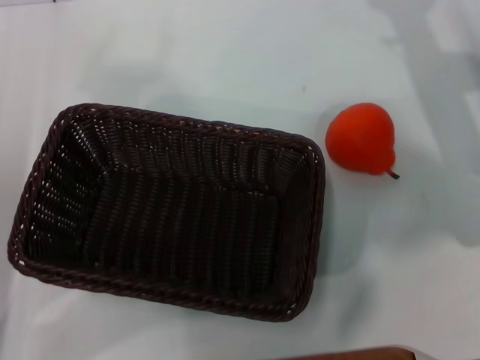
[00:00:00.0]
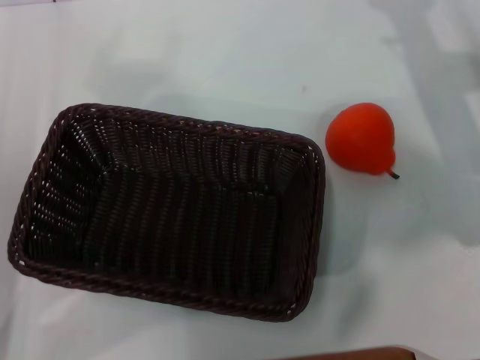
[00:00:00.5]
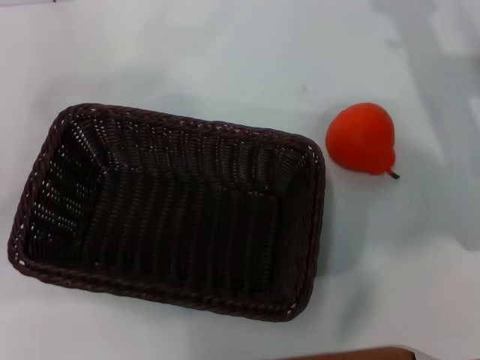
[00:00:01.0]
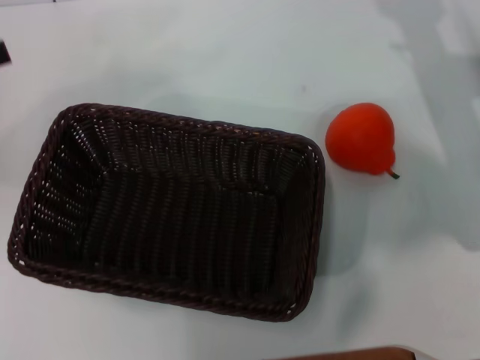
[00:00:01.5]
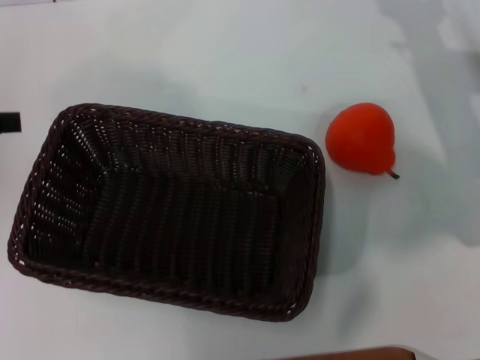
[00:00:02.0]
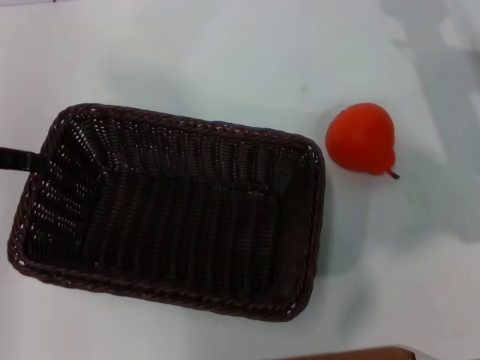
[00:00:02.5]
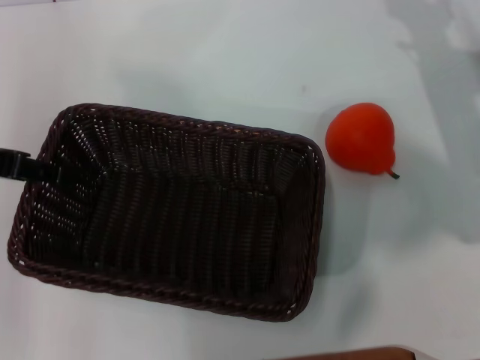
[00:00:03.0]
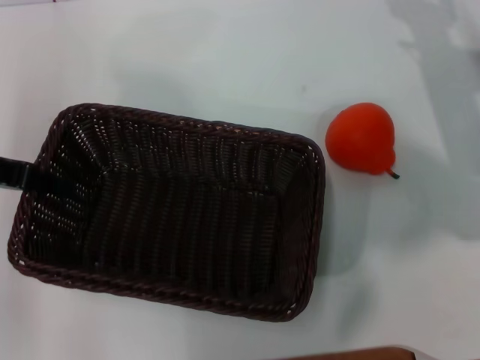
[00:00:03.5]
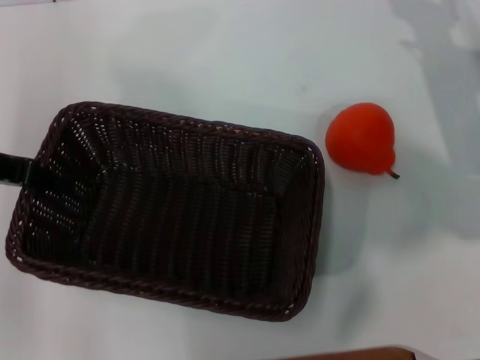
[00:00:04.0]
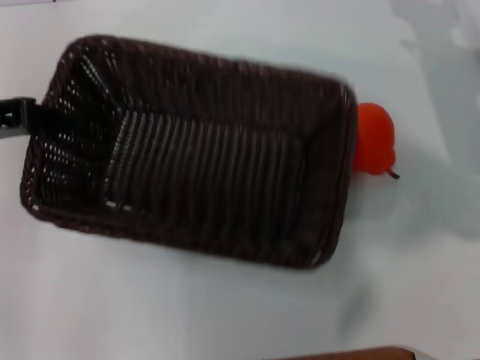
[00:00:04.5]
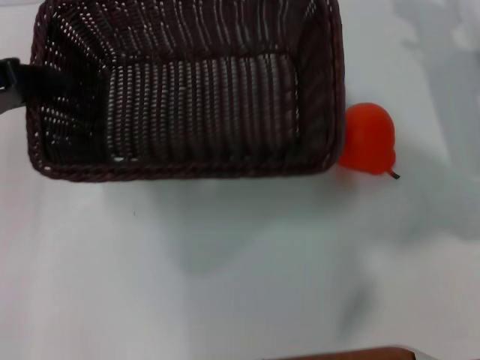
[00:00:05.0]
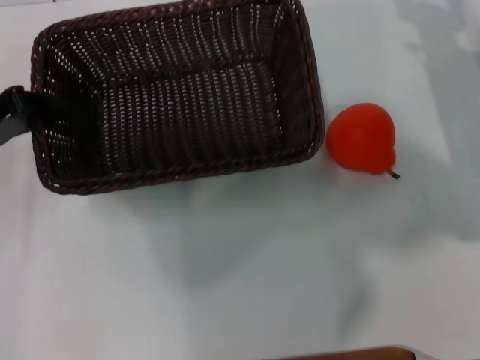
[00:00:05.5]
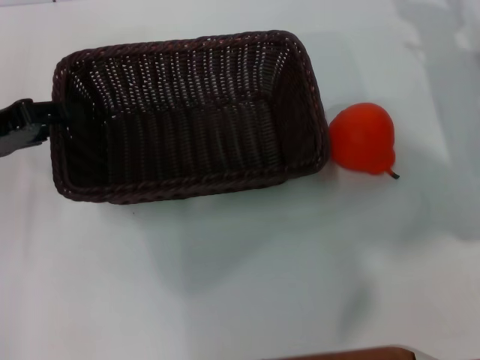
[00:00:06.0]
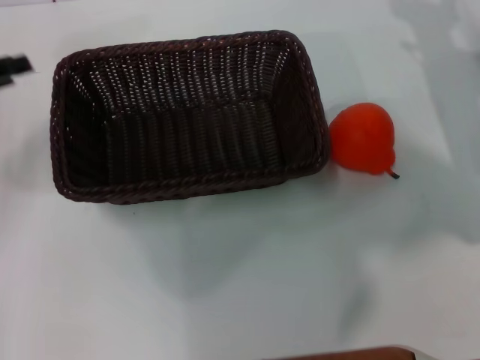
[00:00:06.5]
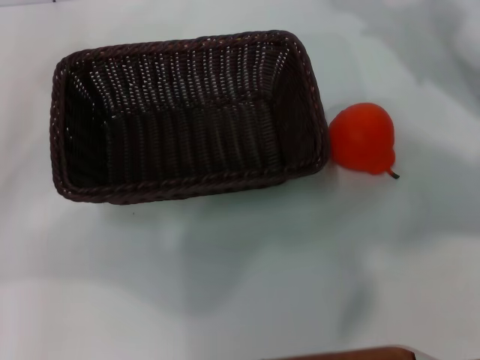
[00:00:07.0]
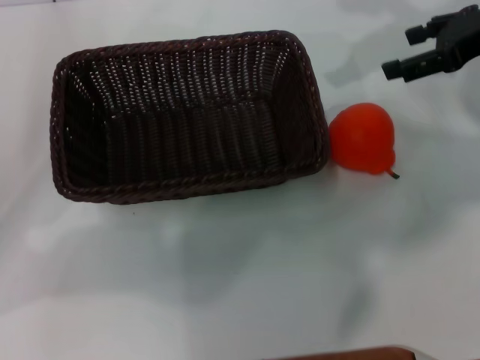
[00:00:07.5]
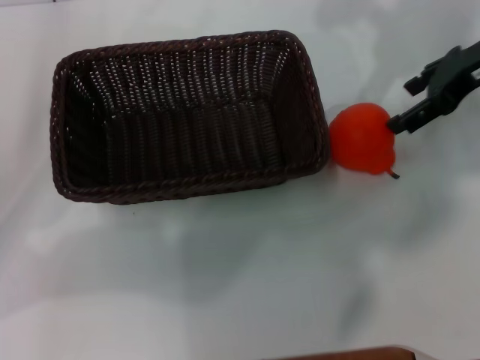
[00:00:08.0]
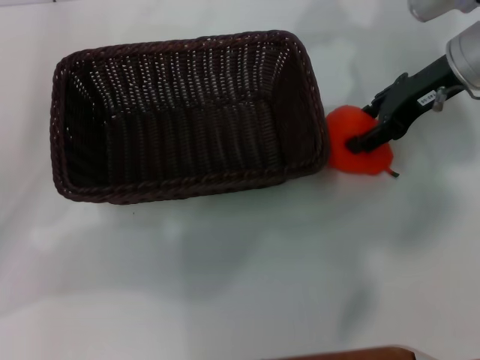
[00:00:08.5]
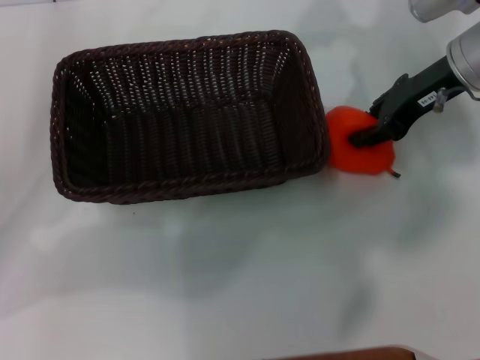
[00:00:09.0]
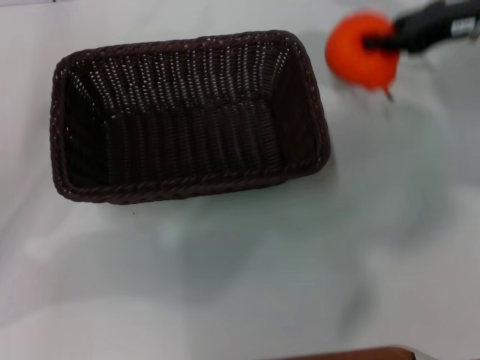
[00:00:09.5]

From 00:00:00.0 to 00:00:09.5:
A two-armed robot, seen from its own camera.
Task of the whole recording: the left gripper pick up the black basket and place it horizontally in the middle of the table, the right gripper pick up the orange and place it into the black basket.
Step, from 00:00:00.0 to 00:00:04.0: Pick up the dark basket with the left gripper.
Step, from 00:00:04.5 to 00:00:06.0: Place the dark basket in the center of view with the left gripper.
Step, from 00:00:06.5 to 00:00:09.0: Pick up the orange with the right gripper.
From 00:00:00.0 to 00:00:02.0: The left gripper moves upward and forward, roughly 15 cm.
From 00:00:02.0 to 00:00:04.0: The left gripper shifts some 5 cm to the right, and closes its fingers.
From 00:00:05.5 to 00:00:07.5: The right gripper travels upward by some 10 cm. The left gripper shifts by some 5 cm, and opens its fingers.
From 00:00:07.5 to 00:00:09.5: The right gripper closes up.

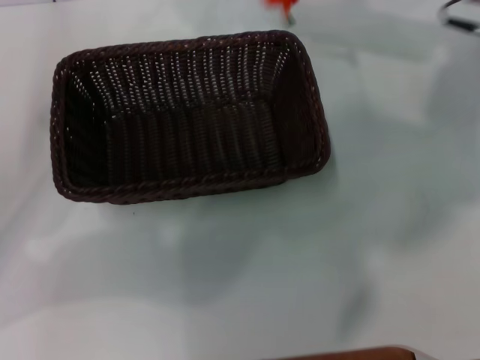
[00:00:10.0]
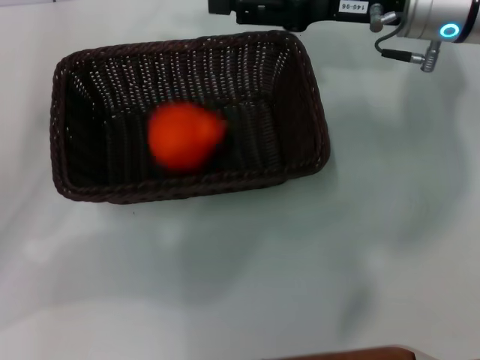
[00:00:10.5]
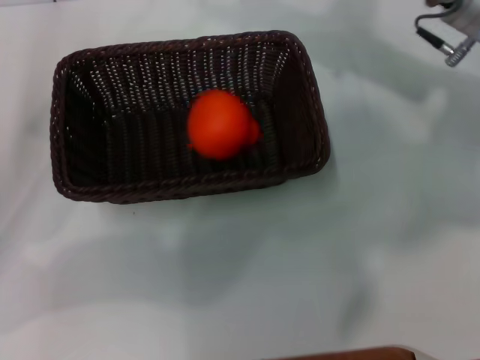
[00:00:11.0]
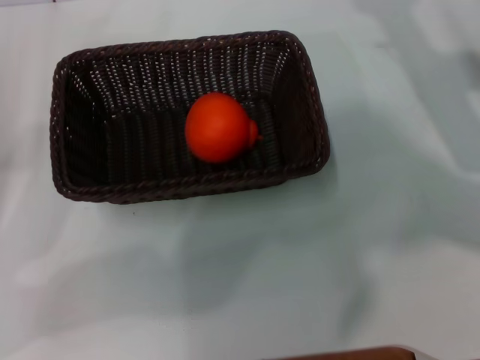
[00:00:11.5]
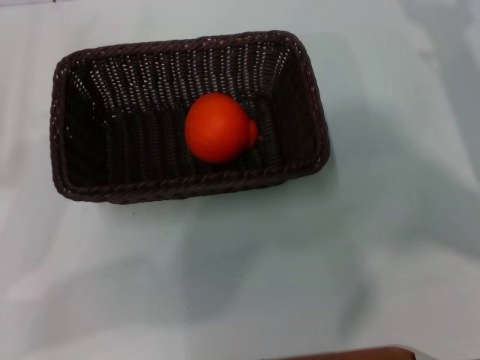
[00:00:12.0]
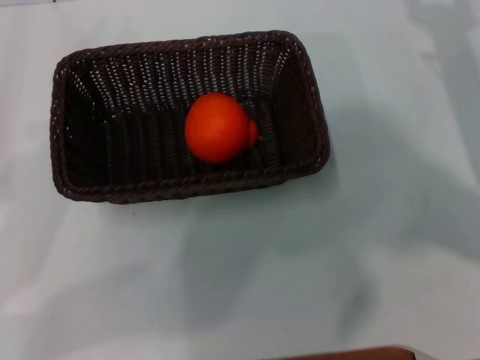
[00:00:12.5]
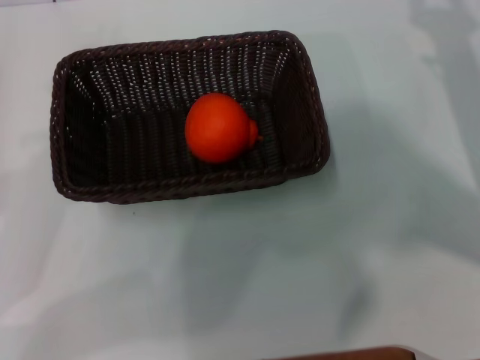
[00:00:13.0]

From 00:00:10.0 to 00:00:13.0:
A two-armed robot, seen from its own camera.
Task of the whole recording: the left gripper pick up the black basket and place it horizontally in the middle of the table, the right gripper pick up the orange and place it into the black basket.
Step, from 00:00:10.0 to 00:00:10.5: Place the orange into the dark basket with the right gripper.
From 00:00:10.0 to 00:00:11.5: The right gripper travels downward, to the right and backward by some 10 cm, and opens up.
From 00:00:11.5 to 00:00:13.0: The right gripper closes.
